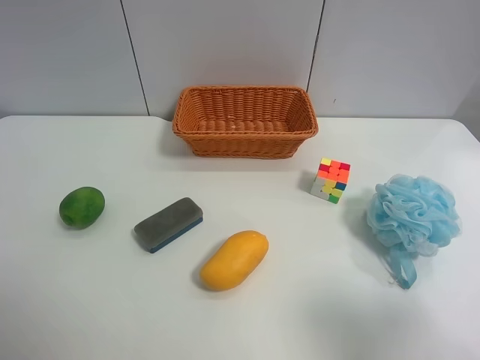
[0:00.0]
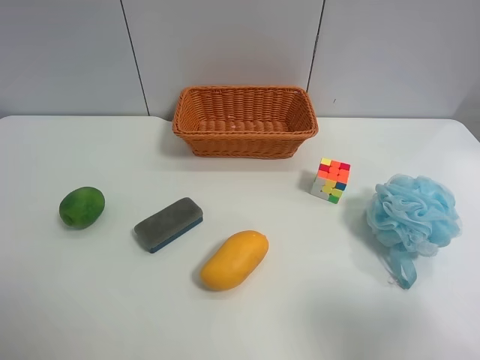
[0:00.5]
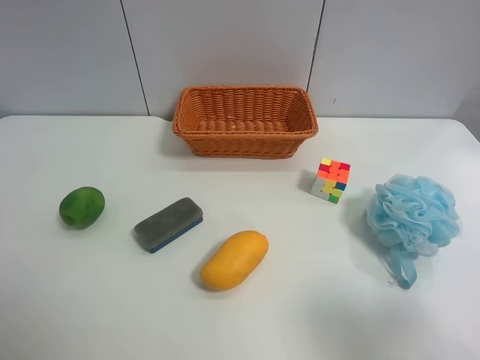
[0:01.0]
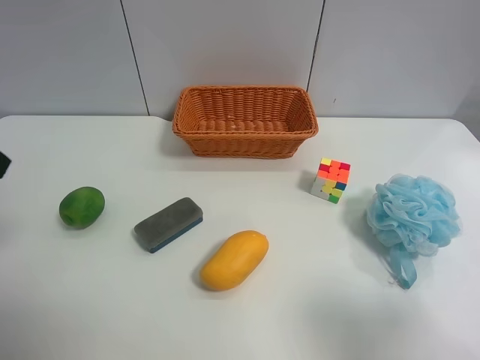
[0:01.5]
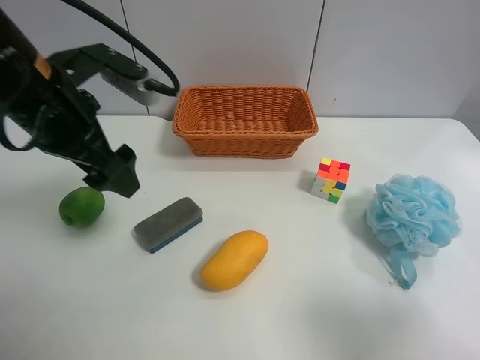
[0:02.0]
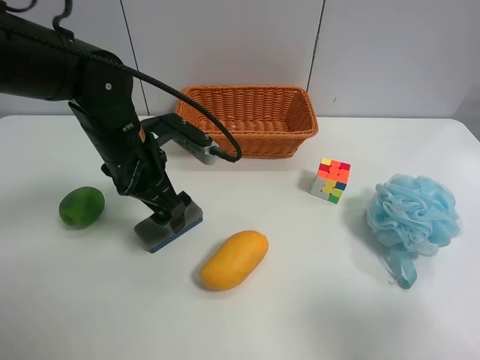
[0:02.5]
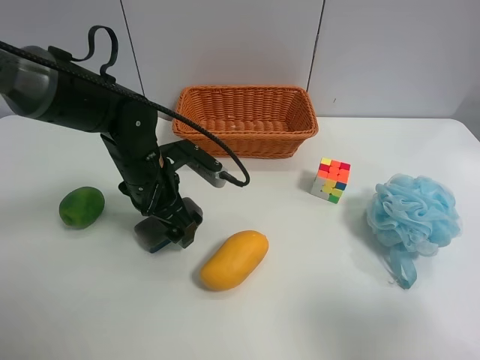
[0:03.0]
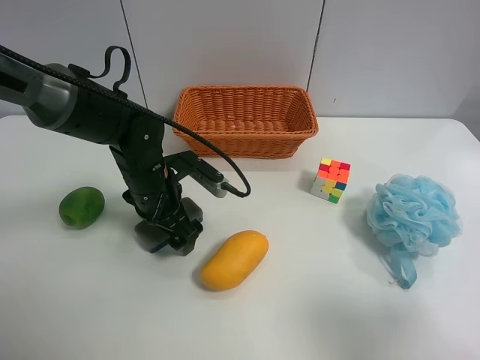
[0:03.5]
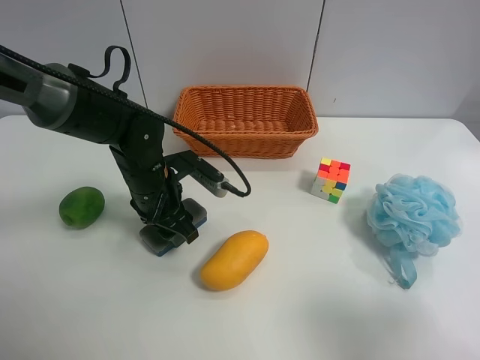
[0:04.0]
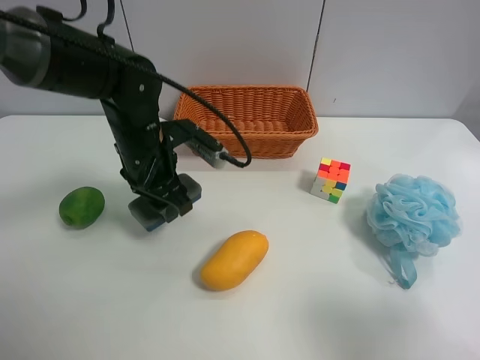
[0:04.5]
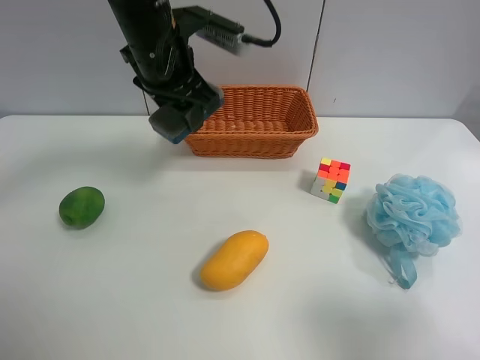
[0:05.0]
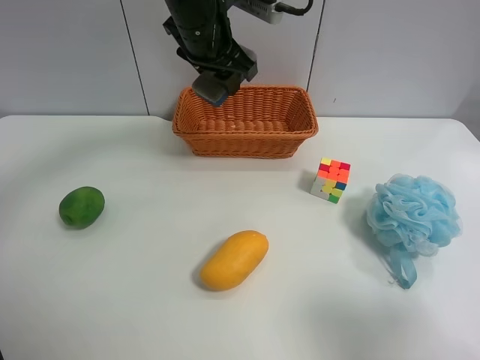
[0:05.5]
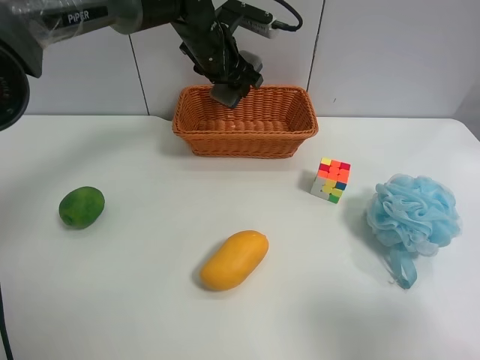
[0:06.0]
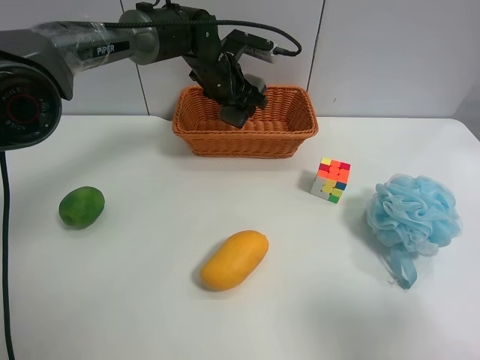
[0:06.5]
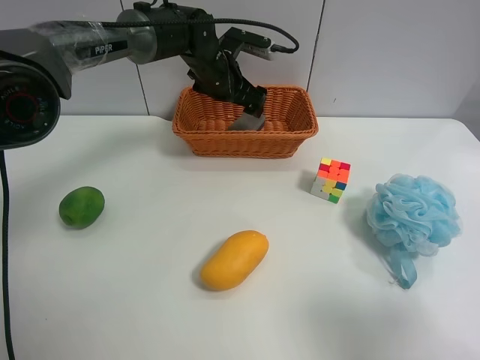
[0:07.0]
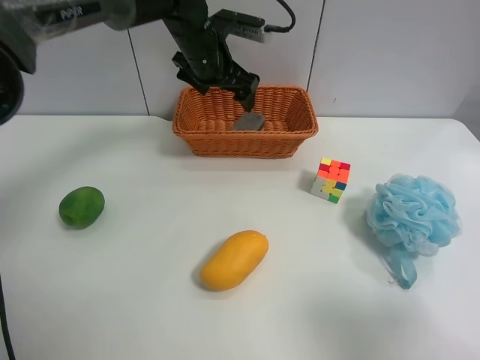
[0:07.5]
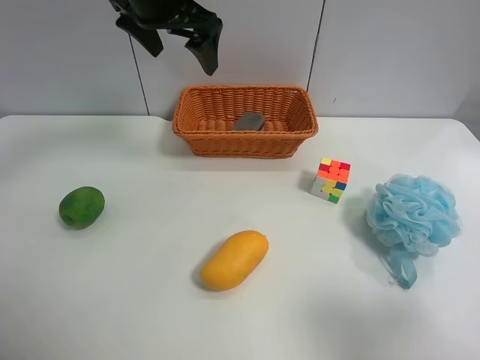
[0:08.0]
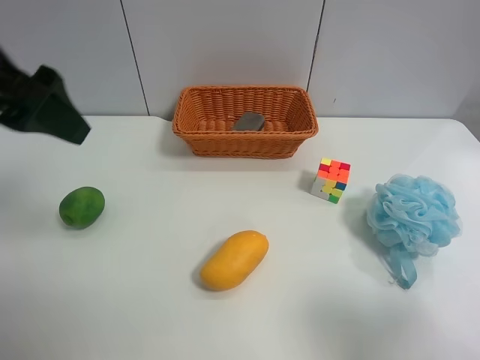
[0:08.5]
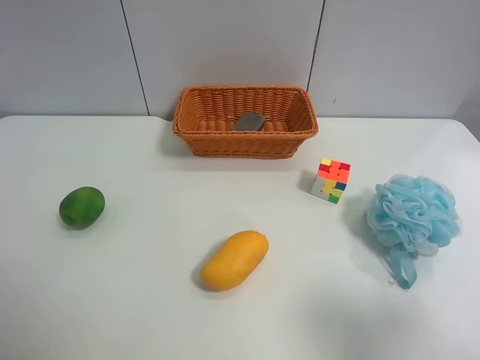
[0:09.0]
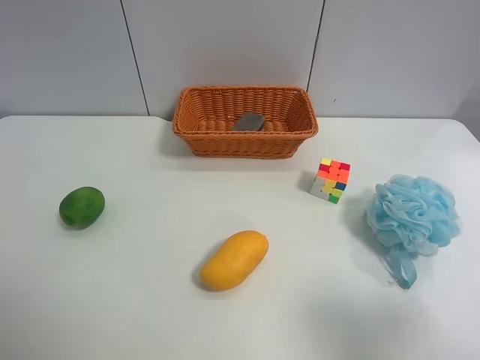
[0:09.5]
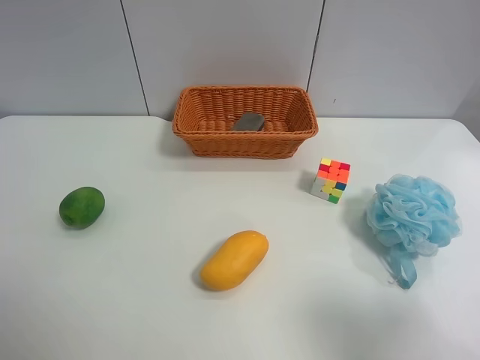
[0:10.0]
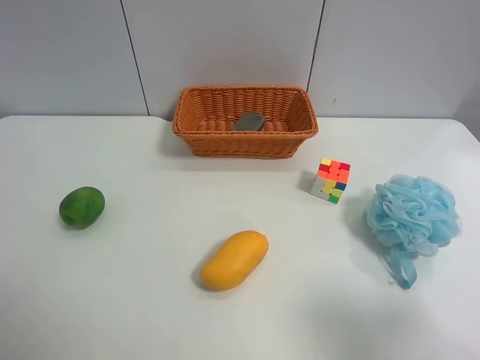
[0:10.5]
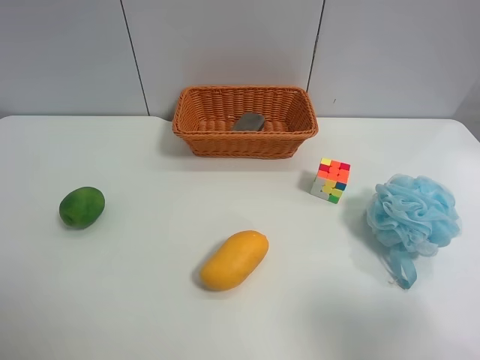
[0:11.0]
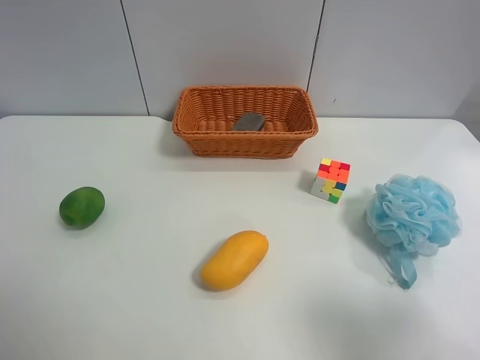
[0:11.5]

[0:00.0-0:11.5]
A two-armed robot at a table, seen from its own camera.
Task of the whole recording: use the left gripper to grab items from the table and place them in the basket.
Step, 0:00.0 to 0:04.0: Grasp the chalkboard eraser with the left gripper.
Step, 0:04.5 to 0:07.0: Place the chalkboard eraser into the basket with the left gripper.
0:00.0 to 0:02.0: The left gripper is displaced forward and to the right by approximately 30 cm.
0:02.0 to 0:04.0: The left gripper heads downward, covering roughly 15 cm, and closes.
0:04.0 to 0:06.0: The left gripper heads forward and upward, covering some 20 cm.
0:06.0 to 0:07.5: The left gripper opens its fingers.
0:07.5 to 0:09.5: The left gripper moves backward and to the left, roughly 50 cm.
